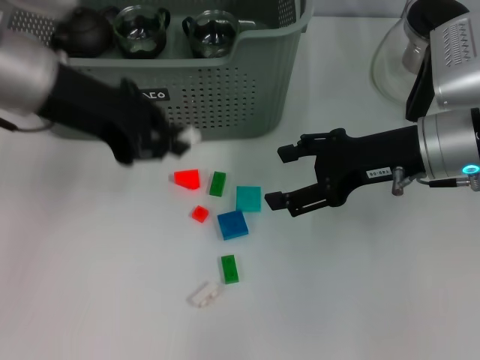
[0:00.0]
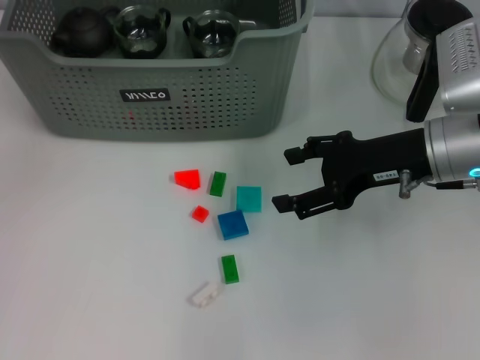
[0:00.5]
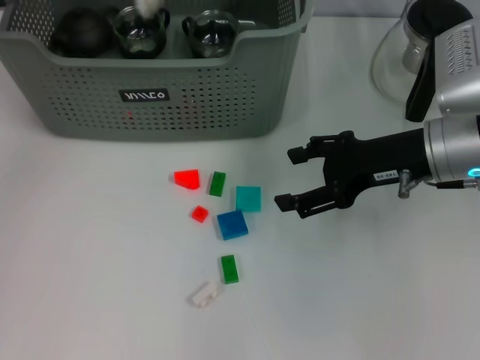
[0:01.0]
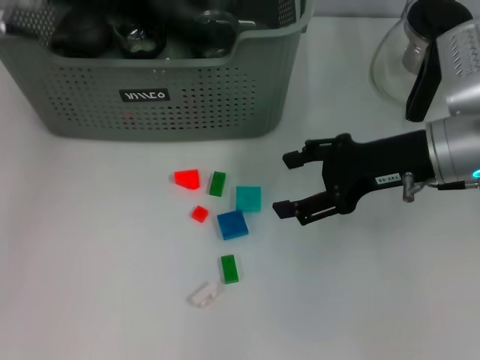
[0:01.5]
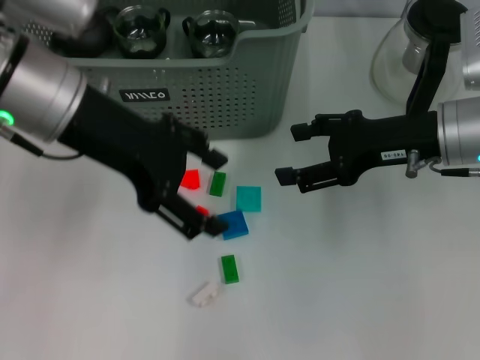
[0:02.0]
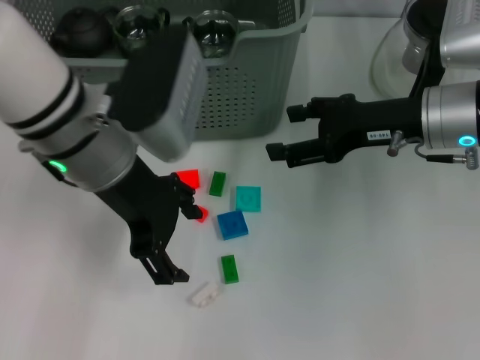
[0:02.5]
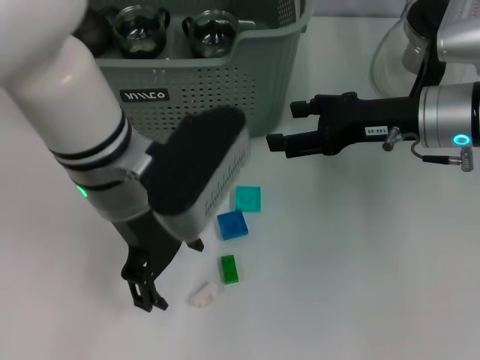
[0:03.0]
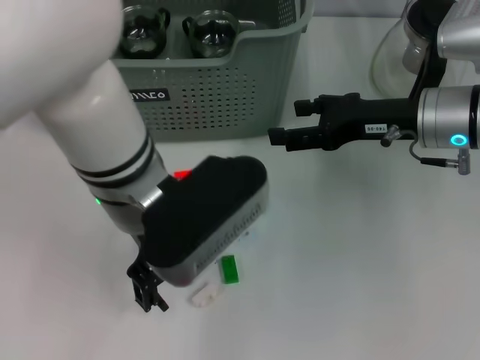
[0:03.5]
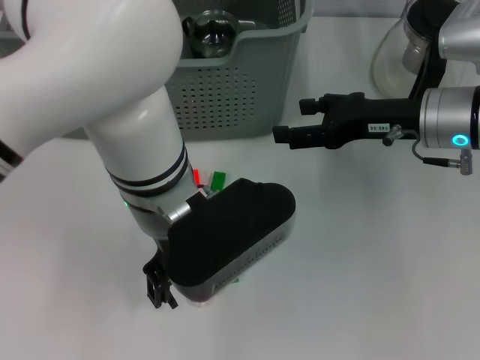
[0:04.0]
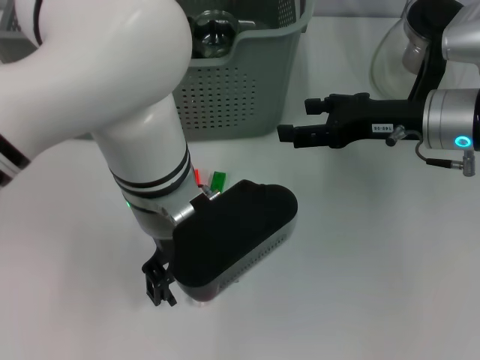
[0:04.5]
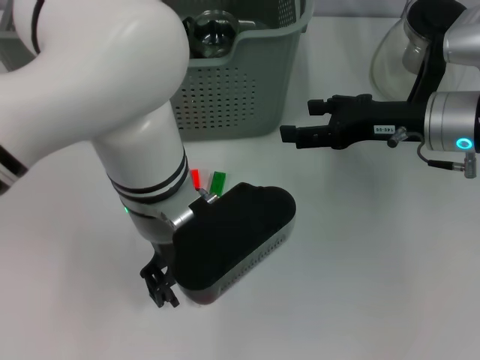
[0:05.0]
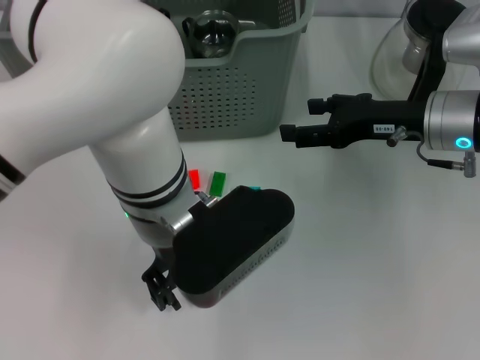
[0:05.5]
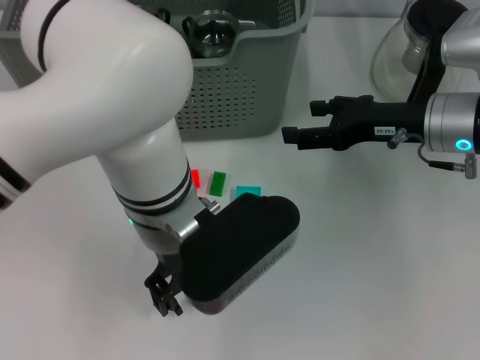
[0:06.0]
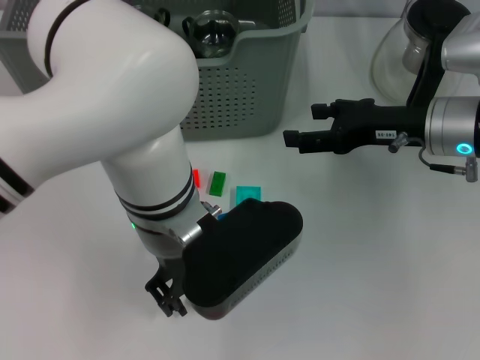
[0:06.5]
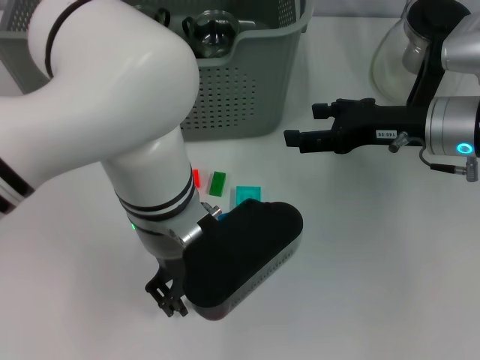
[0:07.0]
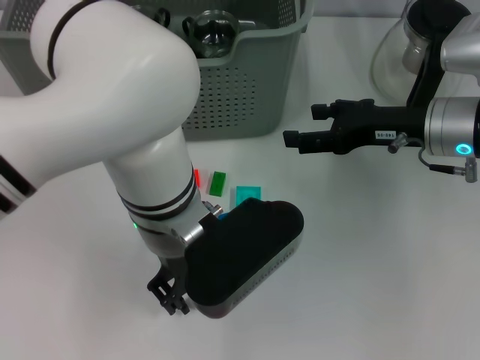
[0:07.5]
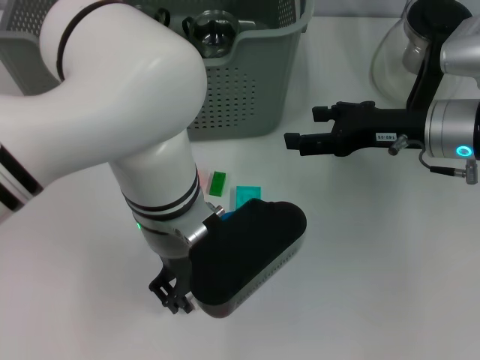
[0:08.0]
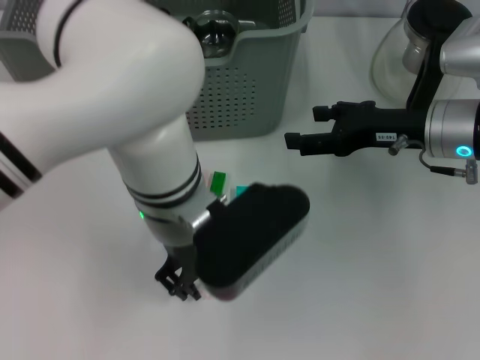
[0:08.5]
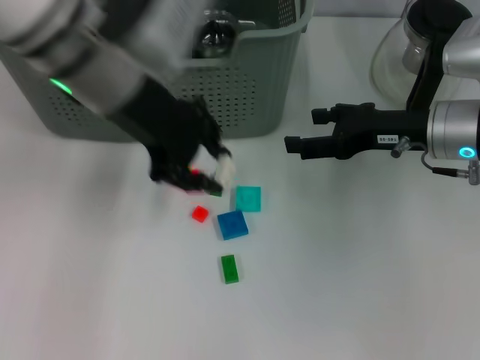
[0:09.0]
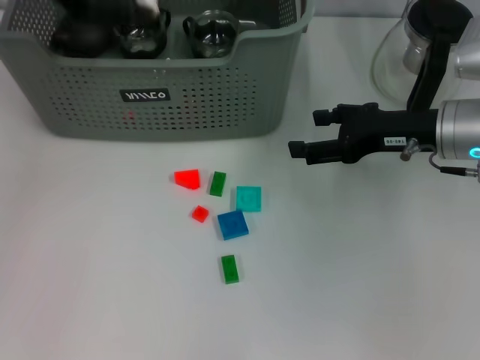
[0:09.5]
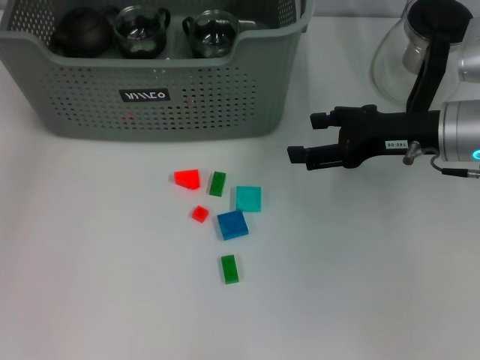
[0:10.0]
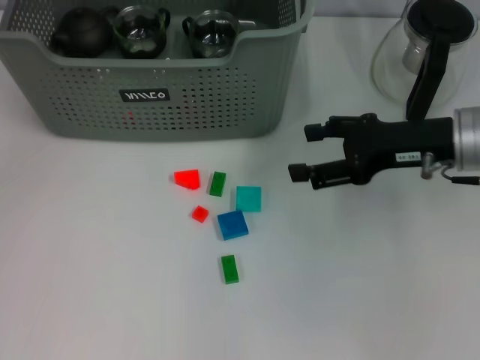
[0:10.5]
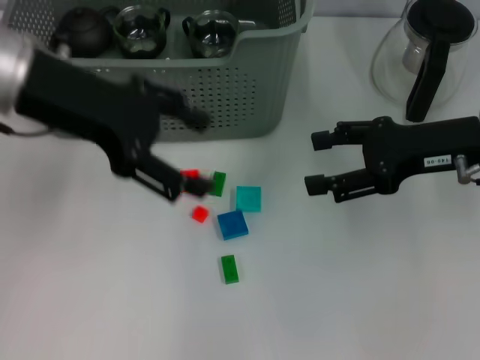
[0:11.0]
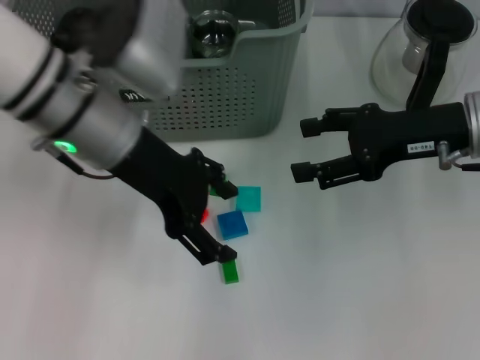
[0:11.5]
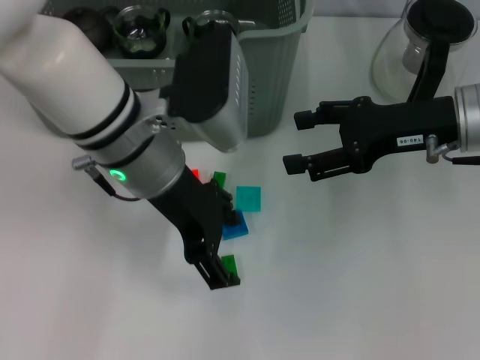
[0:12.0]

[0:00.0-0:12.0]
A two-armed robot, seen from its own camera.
Task of the whole recording: pick up the teacup on the table and place it into the storage bin, pick up the block on the table and place it into the storage bin.
Step, 0:00.0 to 0:01.0: Place the white block in the storage box with left gripper.
Step, 0:01.5 to 0:08.0: Grasp the white block with left gripper.
Step, 0:08.5 to 0:10.5: Place the white block in the storage box with left gripper.
0:00.0 to 0:02.0: The left gripper reaches approximately 10 cm to the left, then returns, and opens.
0:02.0 to 0:04.0: The left gripper is displaced to the right and downward by roughly 15 cm.
0:06.0 to 0:08.0: Neither gripper changes place.
0:08.0 to 0:10.0: The left gripper heads to the left, forward and upward, covering approximately 30 cm.
0:10.0 to 0:12.0: The left gripper shifts roughly 20 cm to the right, backward and downward, and opens up.

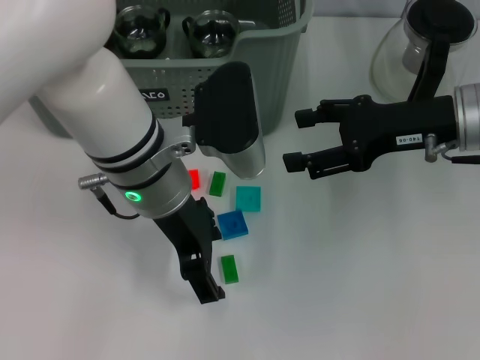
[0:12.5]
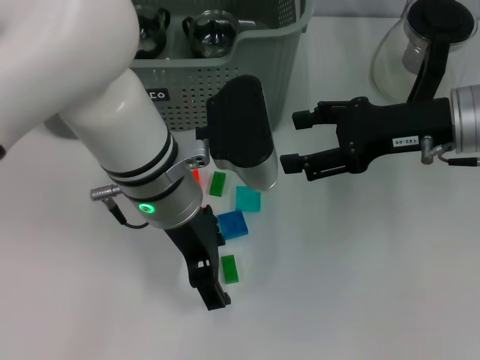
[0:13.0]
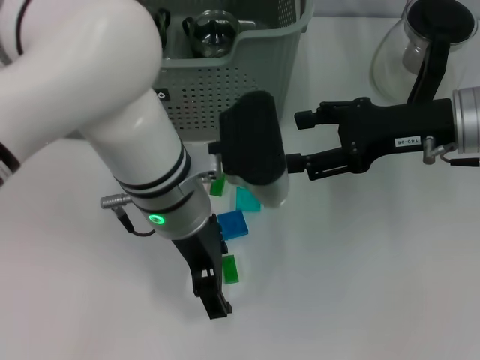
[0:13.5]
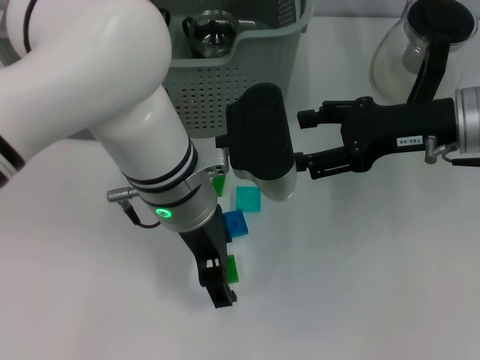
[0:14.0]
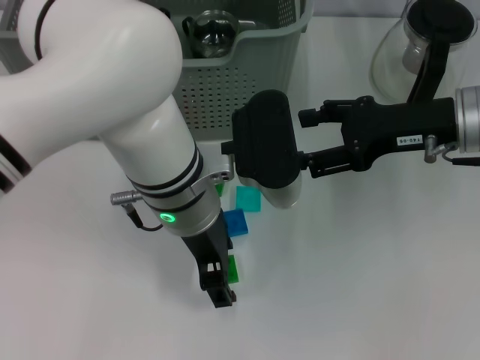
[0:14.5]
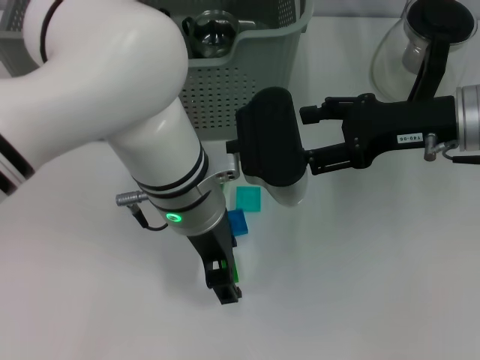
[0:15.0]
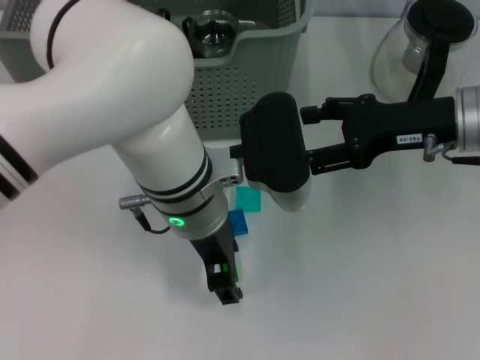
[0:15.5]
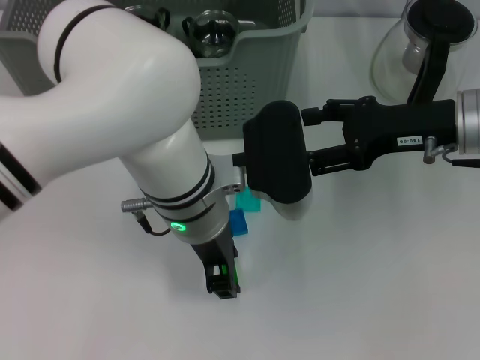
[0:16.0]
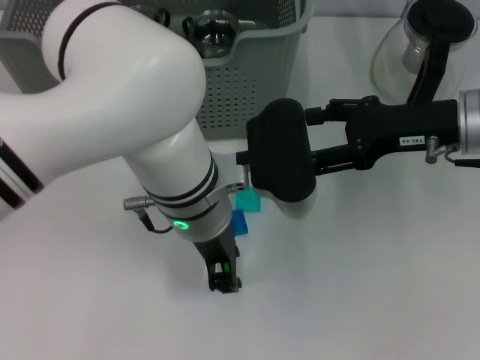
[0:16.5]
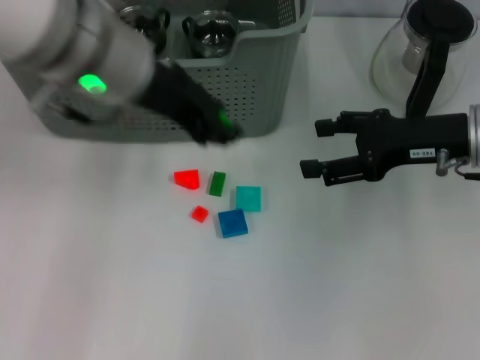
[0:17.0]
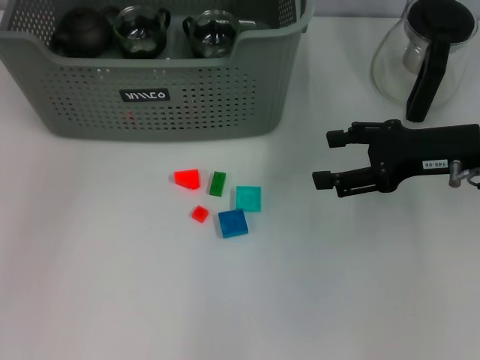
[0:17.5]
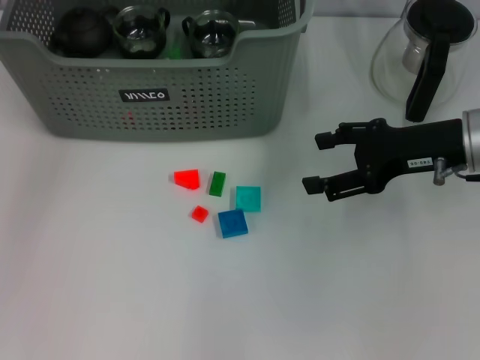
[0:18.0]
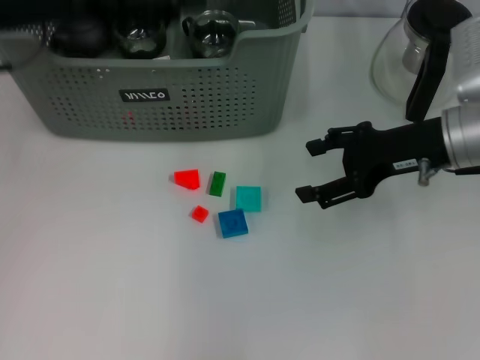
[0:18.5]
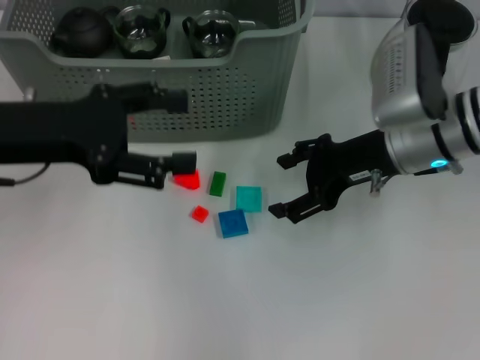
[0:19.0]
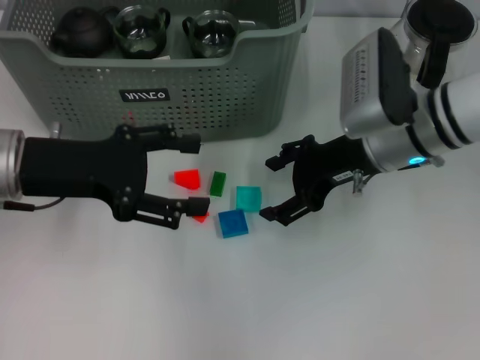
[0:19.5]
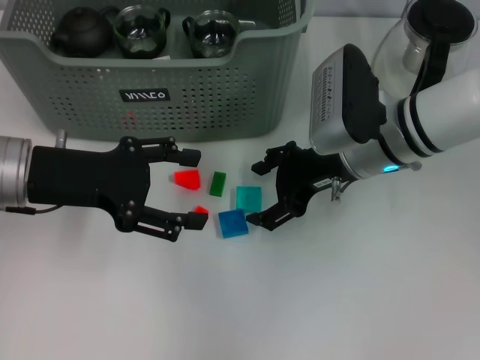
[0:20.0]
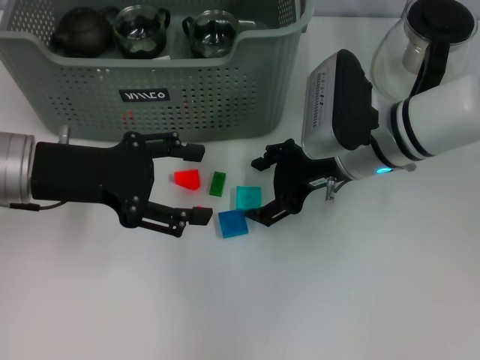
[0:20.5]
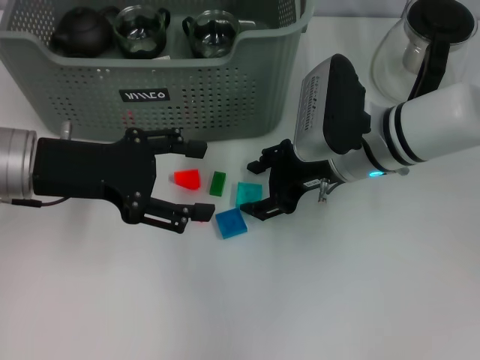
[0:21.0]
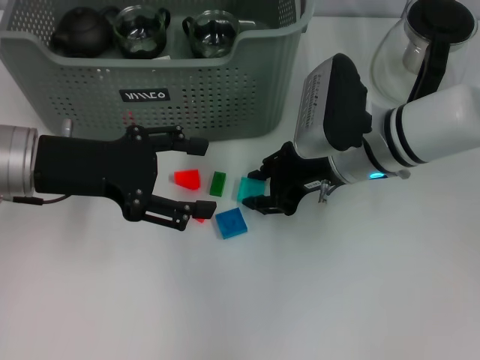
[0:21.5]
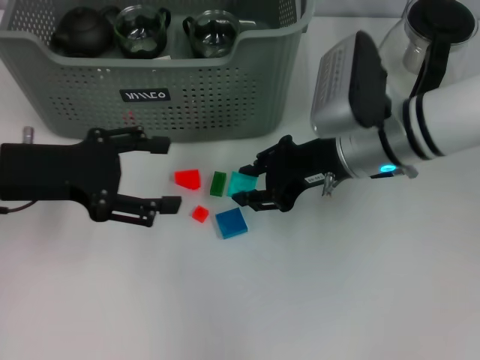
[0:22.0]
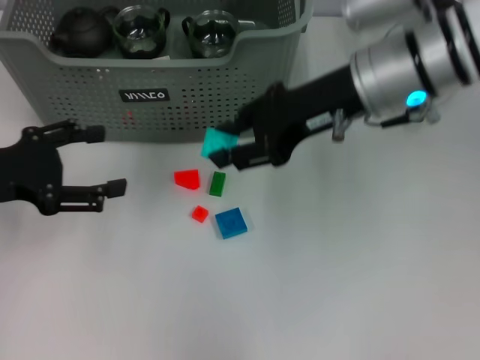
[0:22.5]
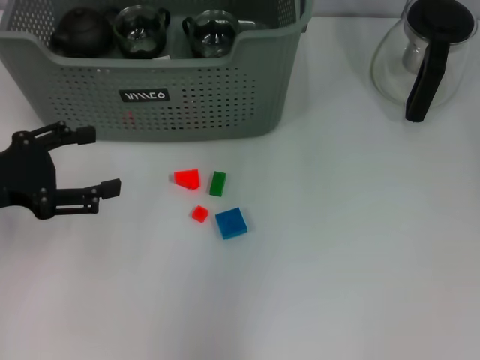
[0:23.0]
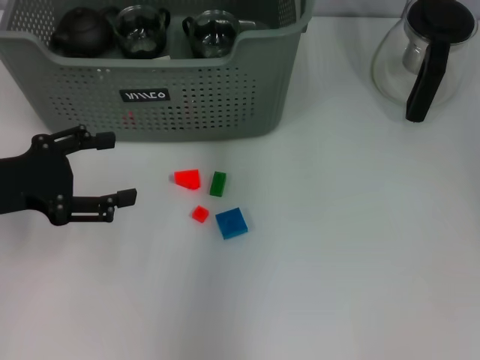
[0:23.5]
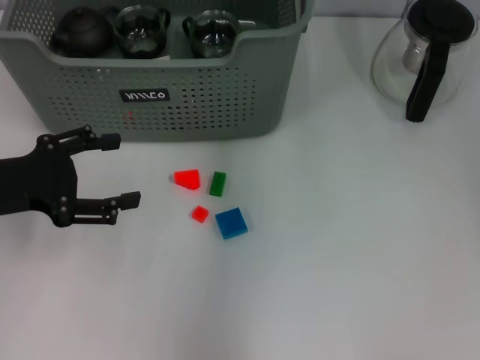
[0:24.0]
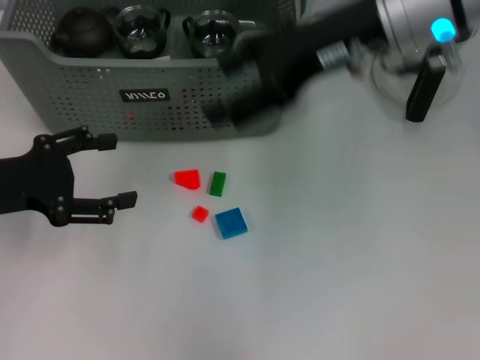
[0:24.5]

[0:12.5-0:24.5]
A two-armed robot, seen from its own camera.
Task of the whole recording: pick up the teacup on the table and place it into the storage bin, pick up the block on the table and place it into the storage bin.
Step, 0:12.5 to 0:16.0: Grasp the green block with left gripper.
Step, 0:17.0 to 0:18.0: Place the green block in the storage box with left gripper.
Step, 0:19.0 to 0:21.5: Grasp the light blue block with right gripper.
Step, 0:22.0 to 0:23.5: Place the light blue block in the storage box with right gripper.
0:14.5 to 0:16.5: The left gripper closes its fingers.
0:16.5 to 0:18.5: The left gripper shifts roughly 20 cm to the left and upward, and opens its fingers.
0:18.5 to 0:20.5: The left gripper is displaced downward by roughly 10 cm, while the right gripper moves to the left, about 10 cm.
0:20.5 to 0:22.5: The right gripper shifts approximately 10 cm upward, and closes its fingers. The left gripper moves to the left, some 5 cm.
0:22.5 to 0:24.5: The right gripper goes forward and returns, roughly 10 cm each way, and opens its fingers.

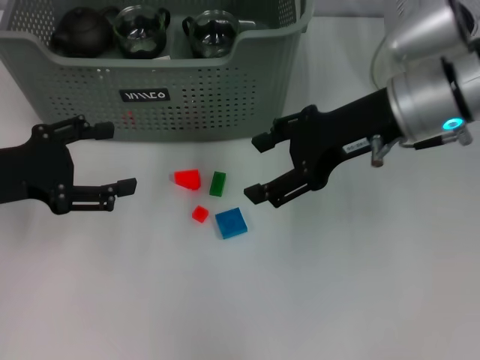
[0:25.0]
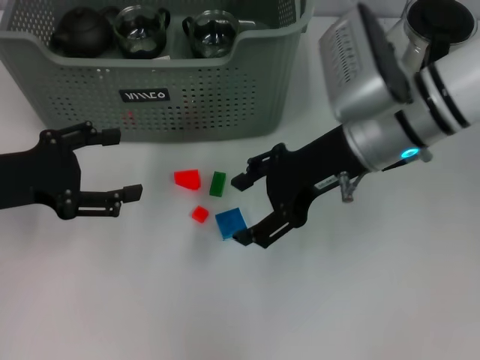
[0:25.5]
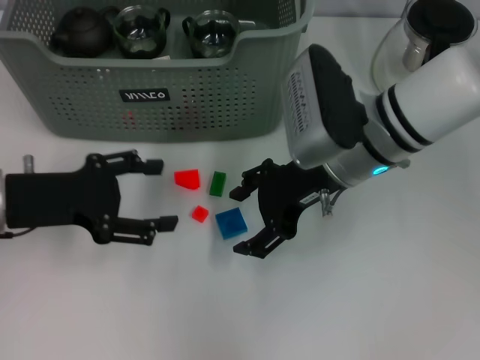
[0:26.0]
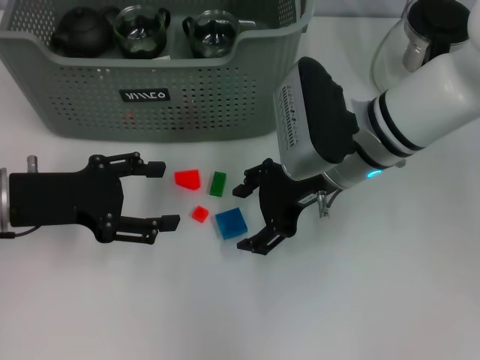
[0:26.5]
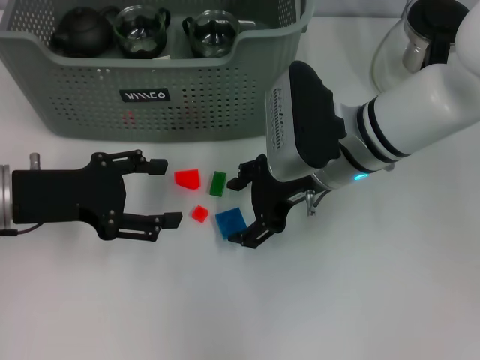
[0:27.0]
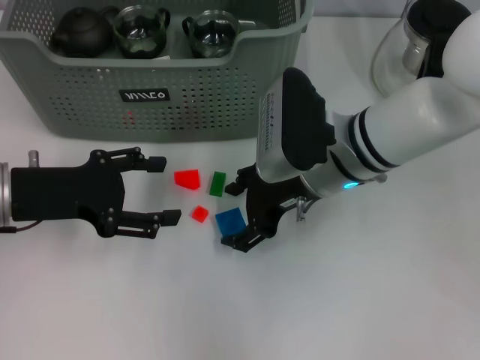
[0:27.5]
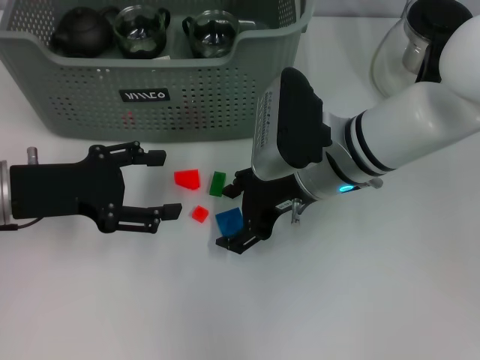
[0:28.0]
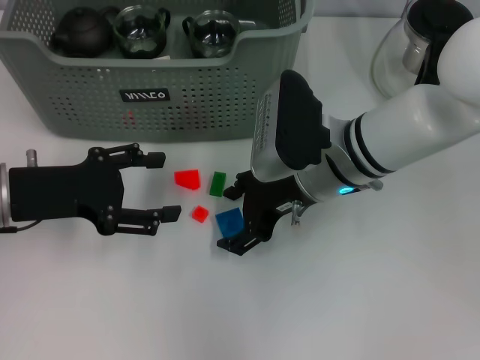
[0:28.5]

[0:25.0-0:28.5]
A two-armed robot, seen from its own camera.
Task of the whole recording: pick up the teacup on the table and place it into the storage bin, pick up the block on the table and place it into the storage bin.
0:25.0 to 0:27.0: The right gripper heads downward and to the left, covering approximately 10 cm.
0:27.0 to 0:28.5: The grippers move only a little.
